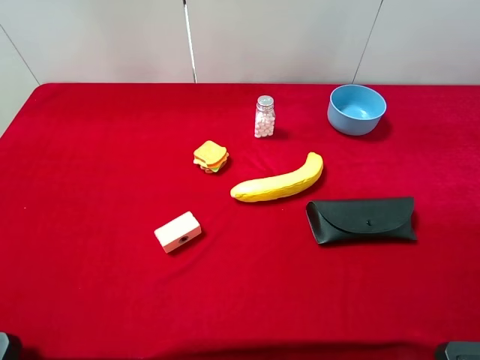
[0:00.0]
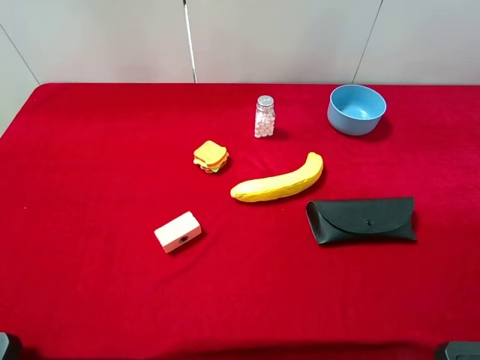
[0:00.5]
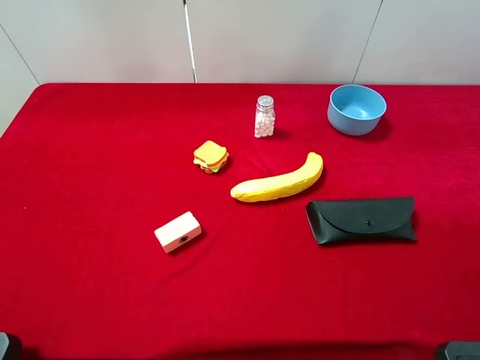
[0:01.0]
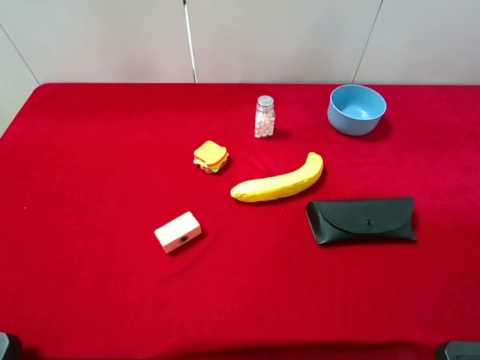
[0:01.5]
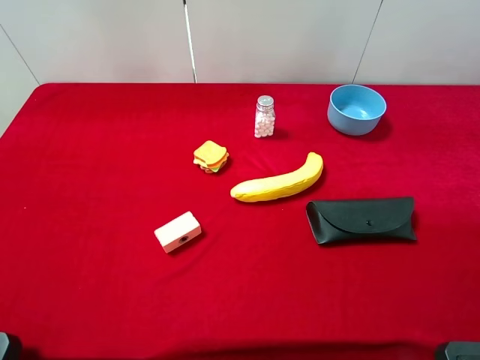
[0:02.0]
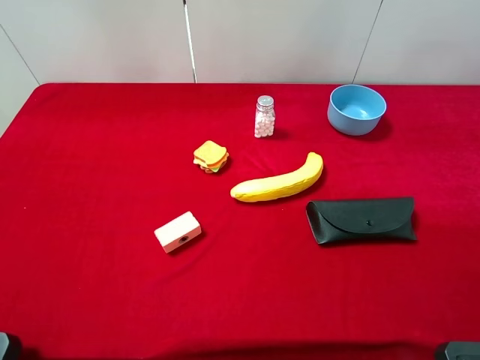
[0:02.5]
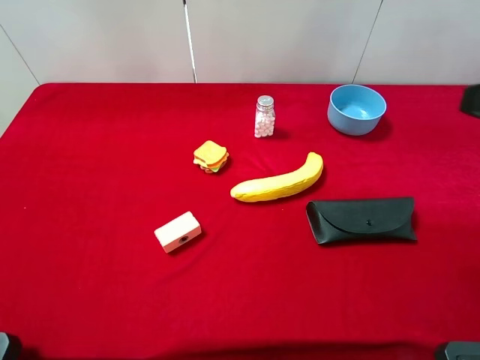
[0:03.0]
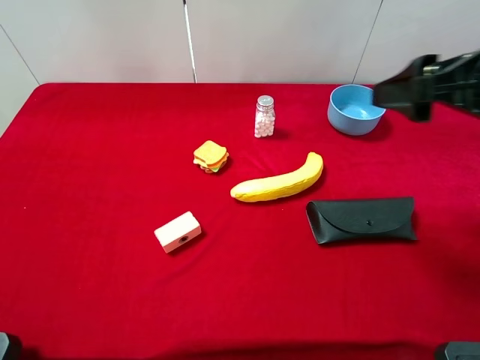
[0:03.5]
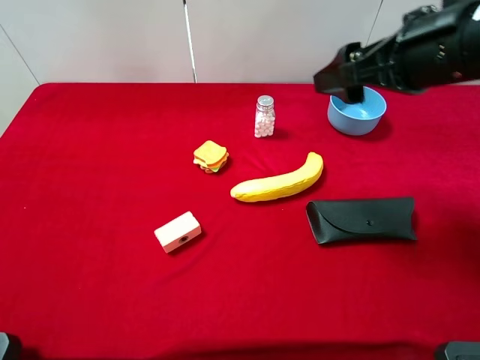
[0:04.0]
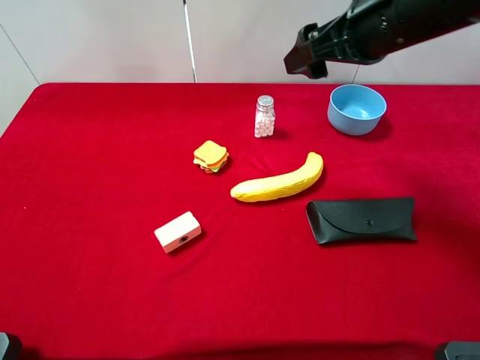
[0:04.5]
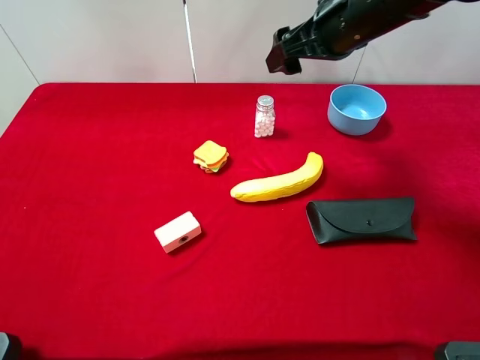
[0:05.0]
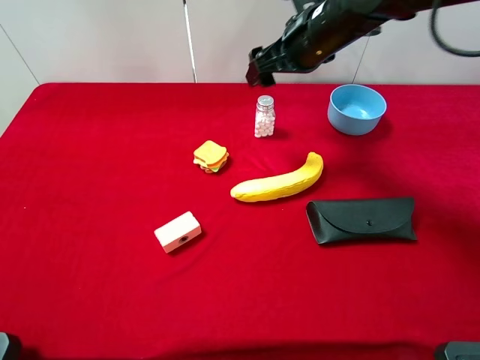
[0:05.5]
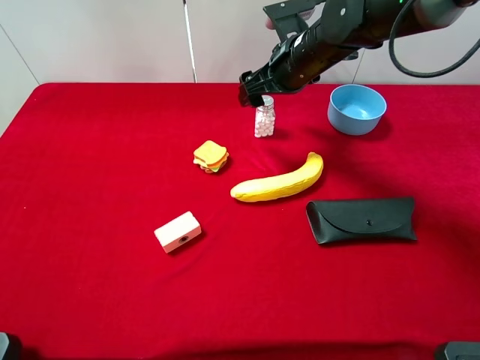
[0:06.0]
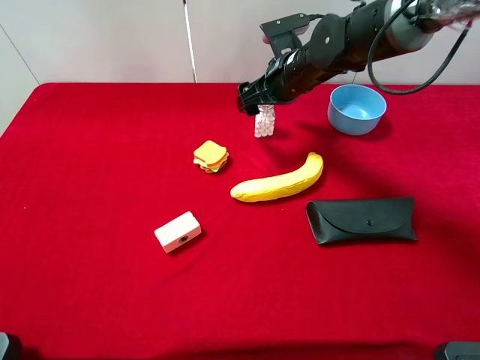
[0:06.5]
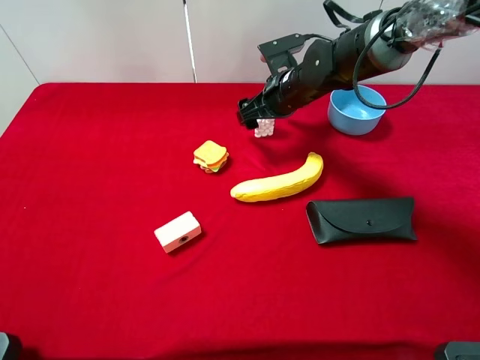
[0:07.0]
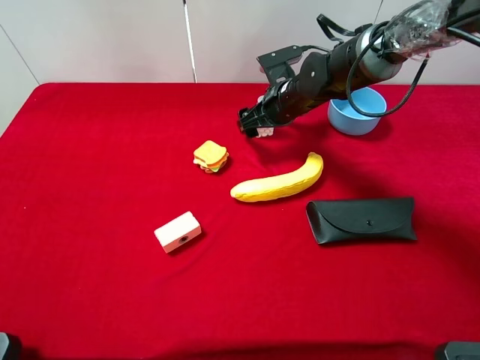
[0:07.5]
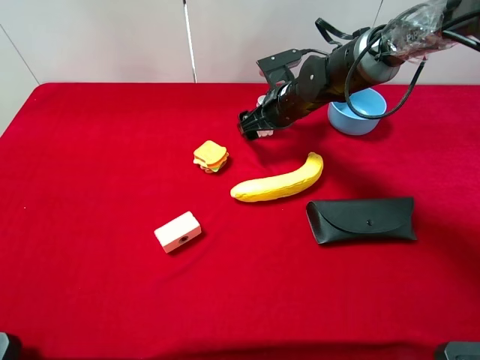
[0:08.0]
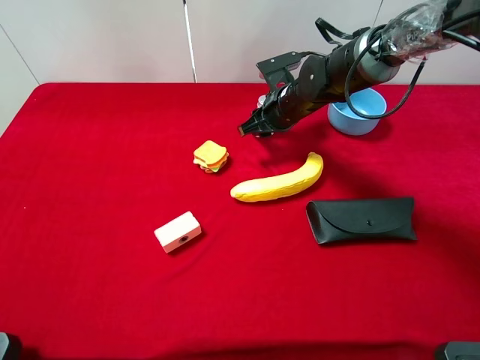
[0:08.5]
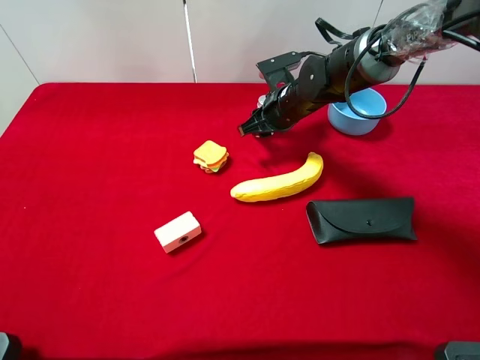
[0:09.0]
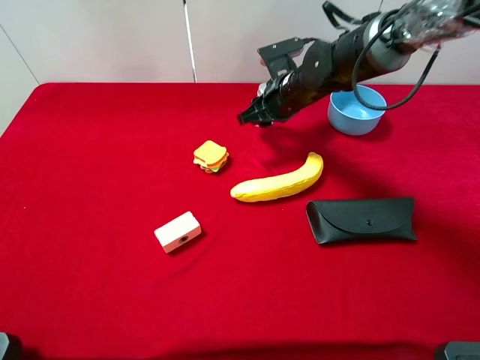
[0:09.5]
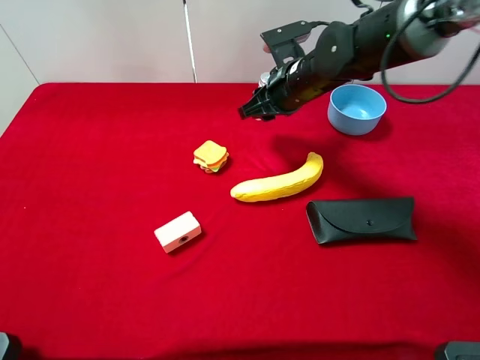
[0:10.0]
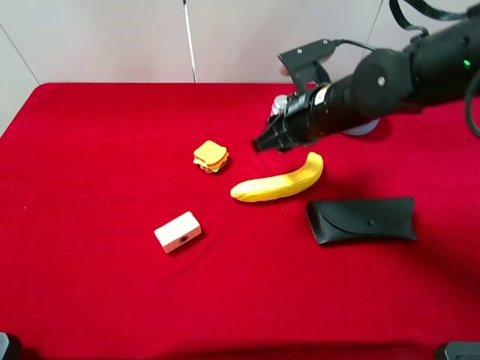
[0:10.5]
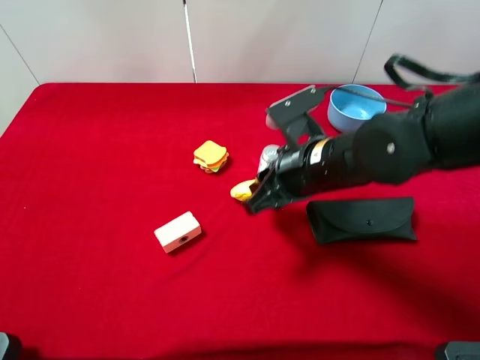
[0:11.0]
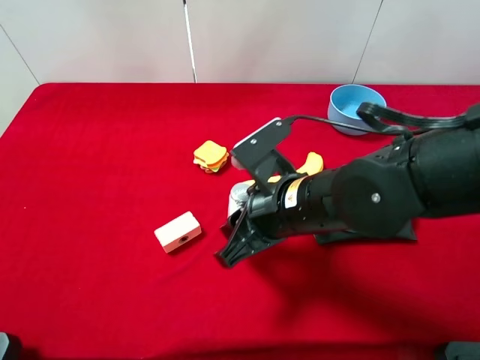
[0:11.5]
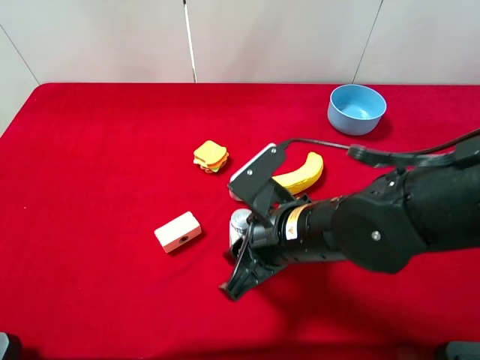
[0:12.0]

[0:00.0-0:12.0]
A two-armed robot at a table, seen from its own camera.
Task of the whole recording: the gripper move the object.
Step, 0:00.0 to 0:08.5: Grasp the mint candy with the right gripper.
0:00.0 to 0:02.0: Neither gripper changes place.
0:02.0 to 0:04.0: The right gripper shifts some 25 cm forward and to the left.
0:04.0 to 0:06.0: The right gripper travels forward, downward and to the left by about 20 cm.
0:06.0 to 0:08.0: The right gripper moves downward, about 10 cm.
0:08.0 to 0:10.0: The right gripper shifts approximately 5 cm upward, and closes its fingers.
0:10.0 to 0:12.0: The right gripper moves backward, some 25 cm.

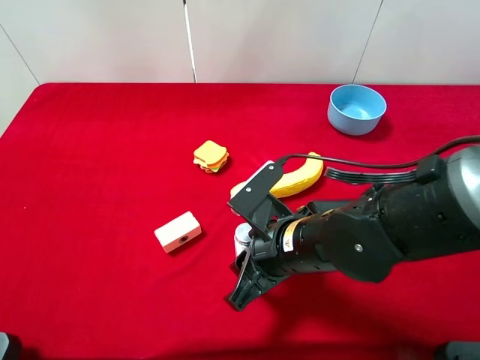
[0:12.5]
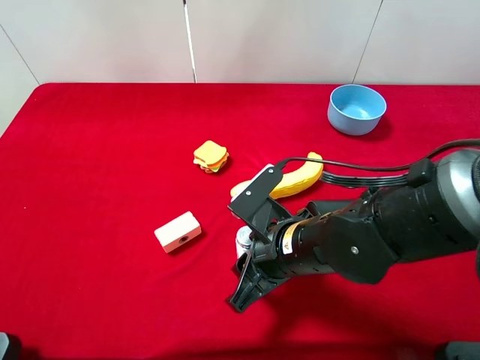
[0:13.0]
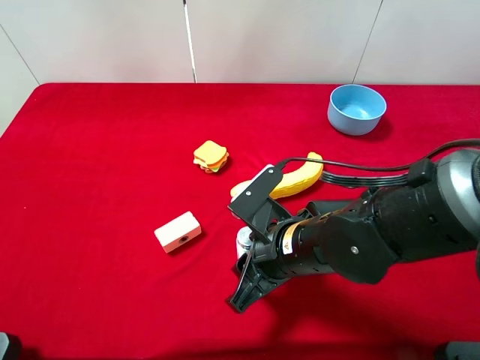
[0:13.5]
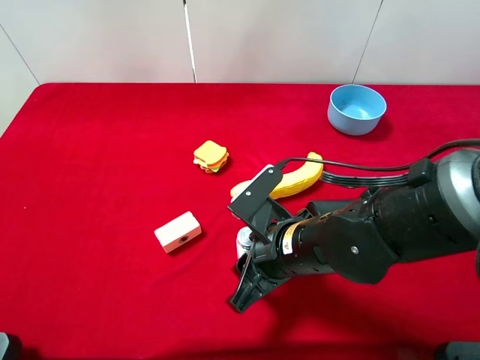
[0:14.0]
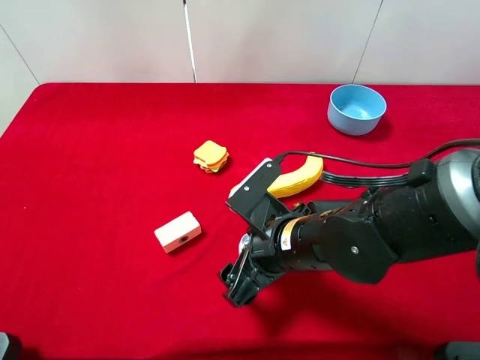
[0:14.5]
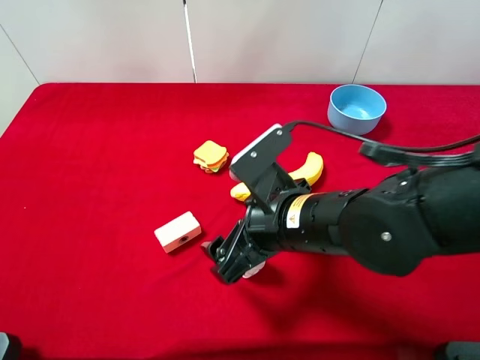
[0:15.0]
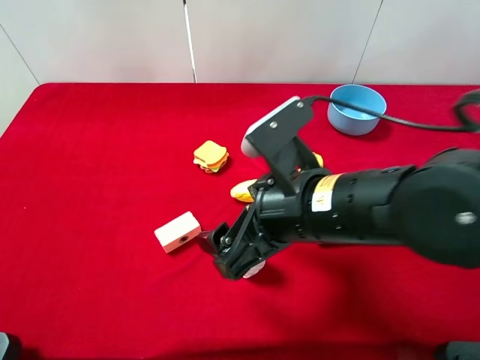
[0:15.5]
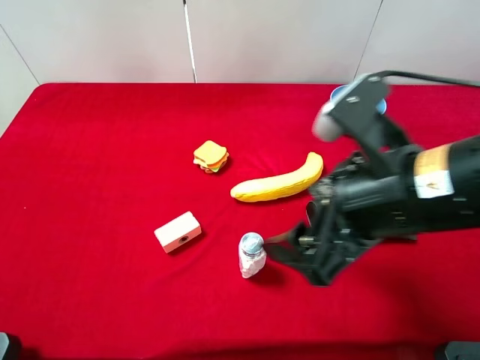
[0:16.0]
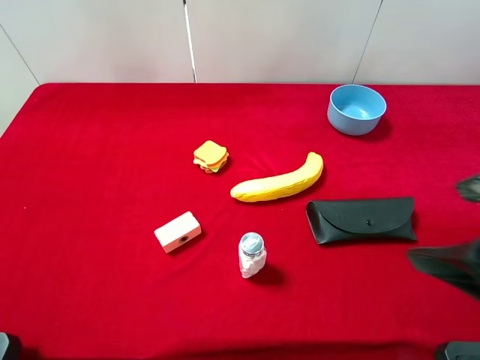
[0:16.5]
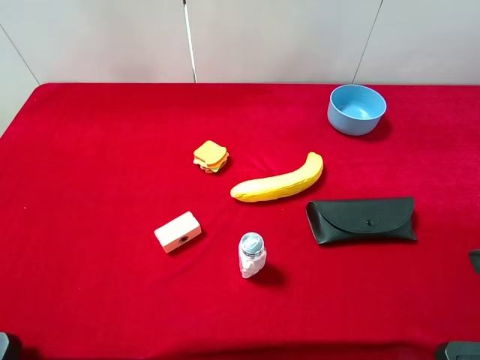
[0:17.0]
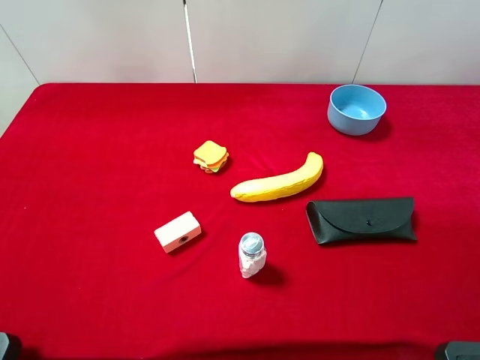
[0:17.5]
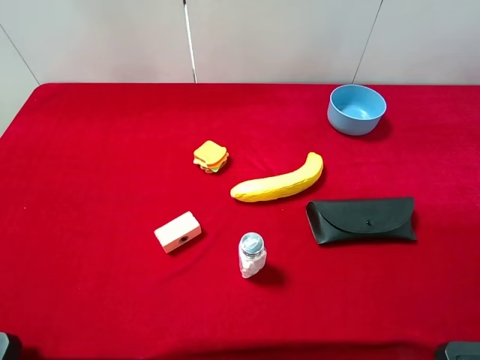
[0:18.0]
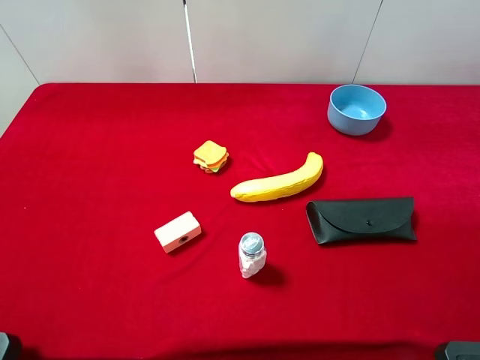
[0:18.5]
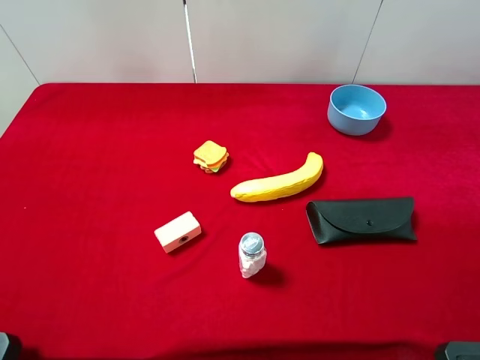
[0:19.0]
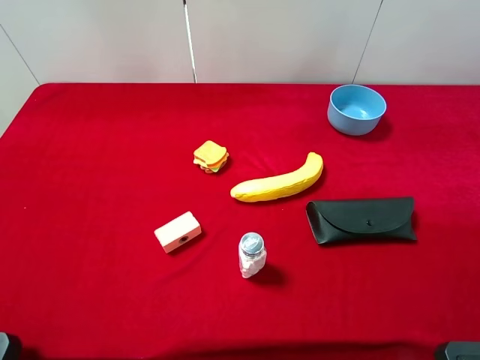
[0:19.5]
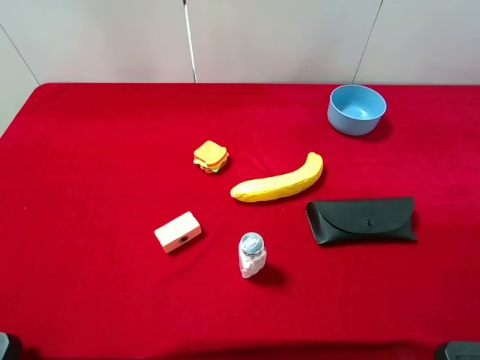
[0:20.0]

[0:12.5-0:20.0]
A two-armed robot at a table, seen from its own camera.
Task of the whole recording: the gripper move the object.
Step, 0:12.5 to 0:15.5: Place the mint candy on the table with the right gripper.
0:12.5 to 0:14.5: The right gripper opens.
0:14.5 to 0:16.5: The right gripper travels upward and to the right by some 25 cm.
0:16.5 to 0:18.0: The right gripper moves to the right and backward, roughly 10 cm.

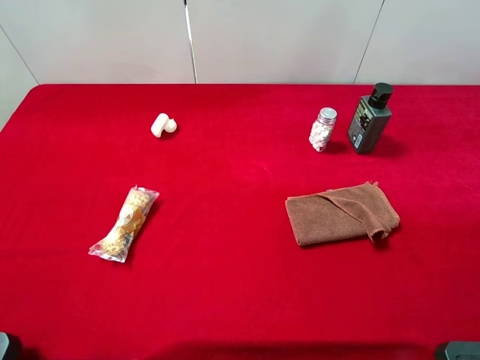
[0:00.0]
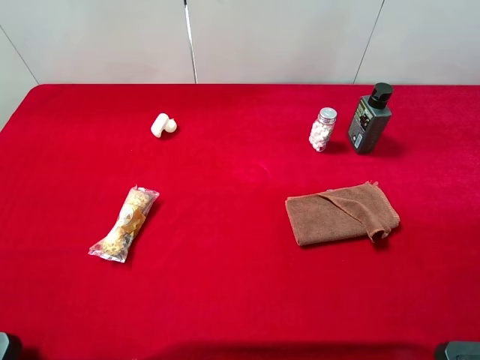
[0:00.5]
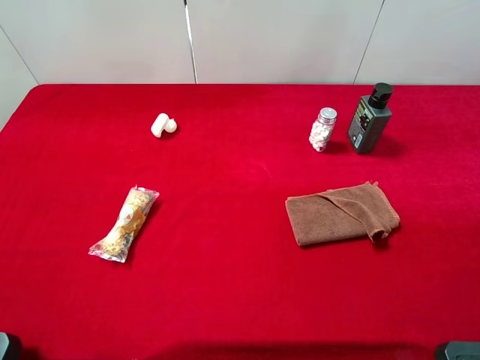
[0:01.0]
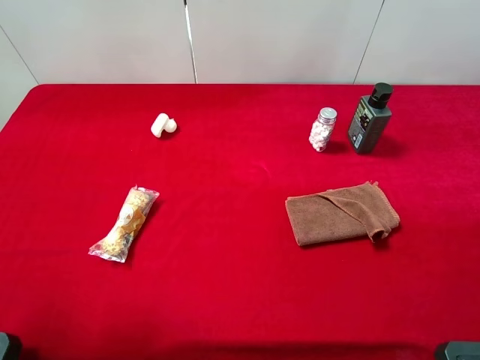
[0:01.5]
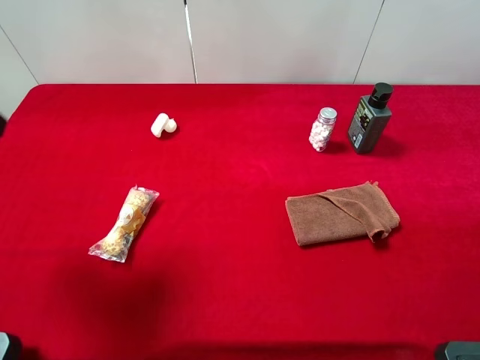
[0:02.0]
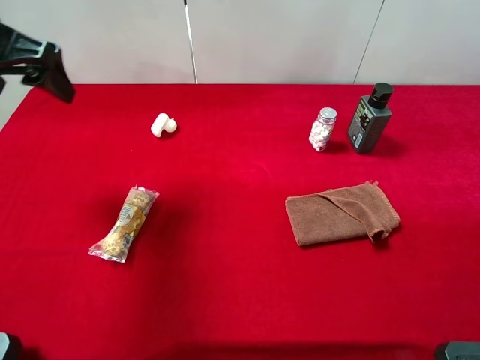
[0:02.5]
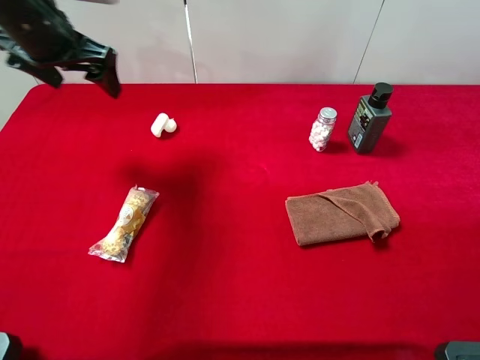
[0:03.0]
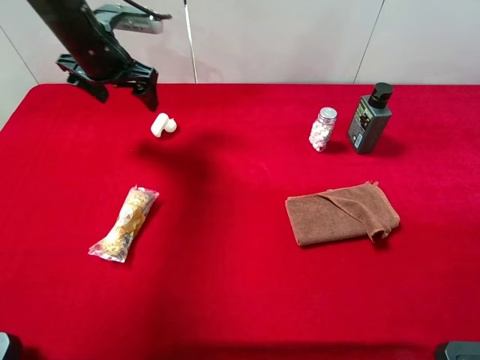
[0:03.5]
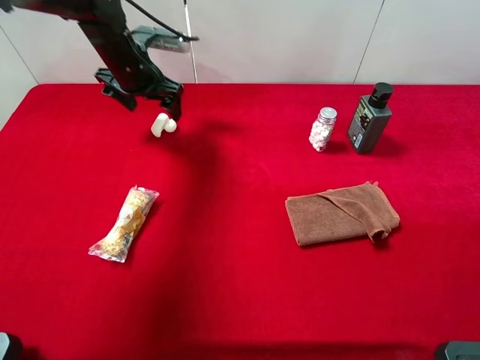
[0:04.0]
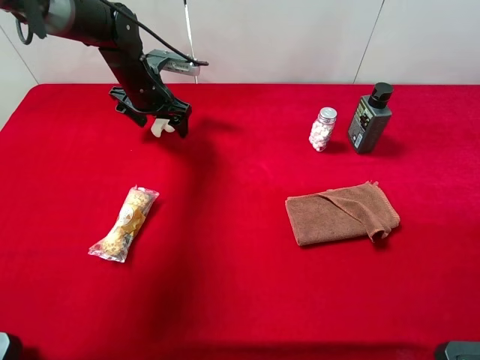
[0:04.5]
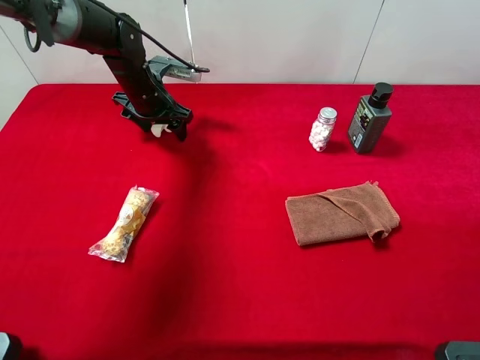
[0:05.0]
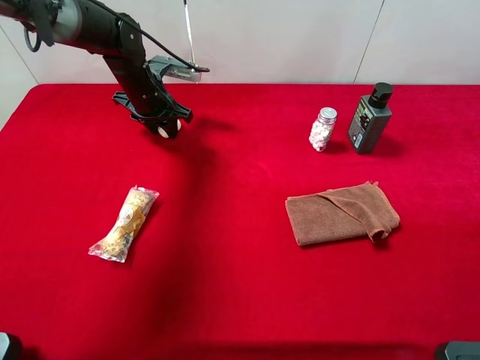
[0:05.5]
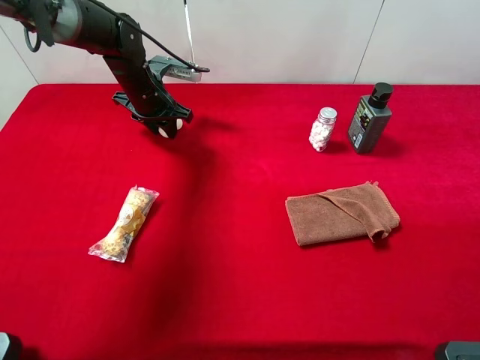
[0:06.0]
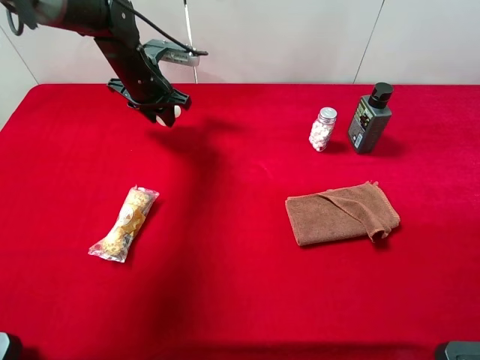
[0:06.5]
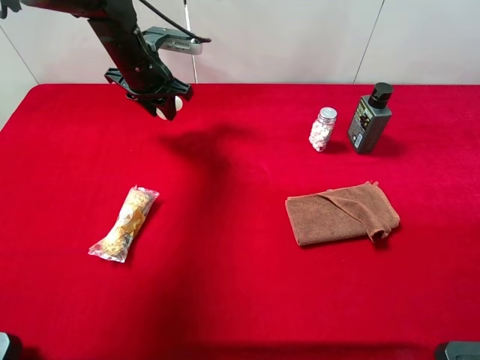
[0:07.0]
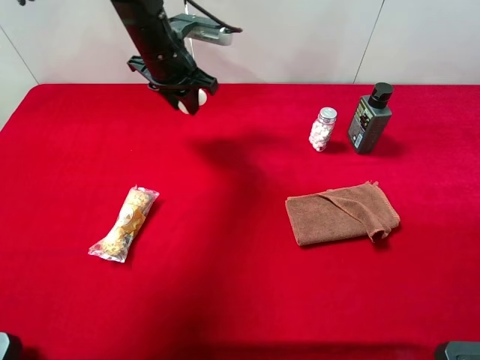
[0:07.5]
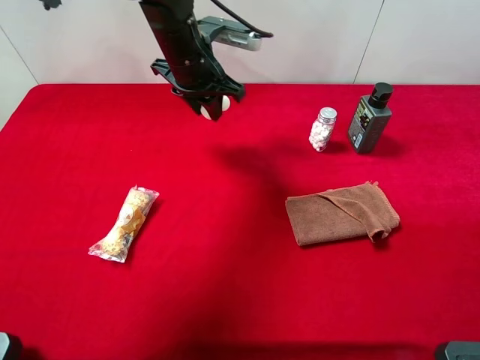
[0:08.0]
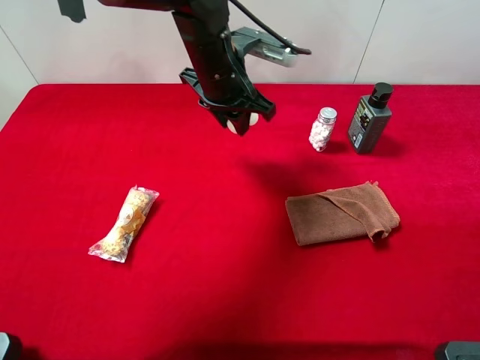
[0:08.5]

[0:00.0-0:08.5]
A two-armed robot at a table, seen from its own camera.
Task of the whole recording: the gripper move the object.
Step, 0:00.0 to 0:05.5: Grasp the white duck with the left gripper.
0:00.0 to 0:02.0: The left gripper heads forward, covering about 20 cm.
0:02.0 to 0:04.0: The left gripper goes about 30 cm forward, downward and to the right.
0:04.0 to 0:06.5: The left gripper closes its fingers.
0:06.5 to 0:08.5: The left gripper moves to the right, backward and upward, about 20 cm.
